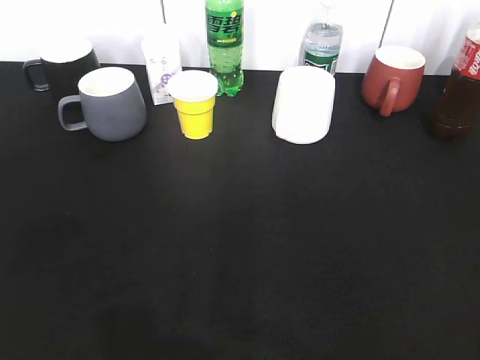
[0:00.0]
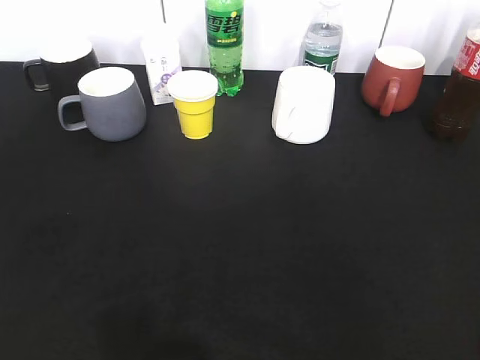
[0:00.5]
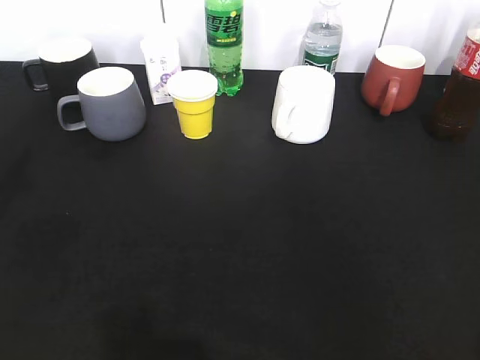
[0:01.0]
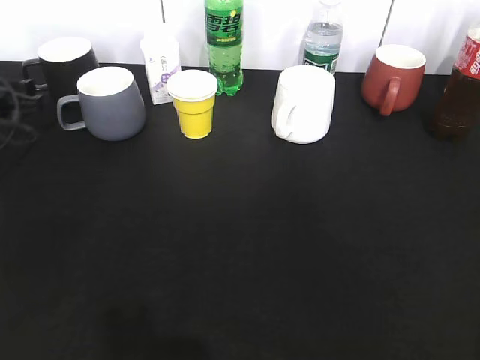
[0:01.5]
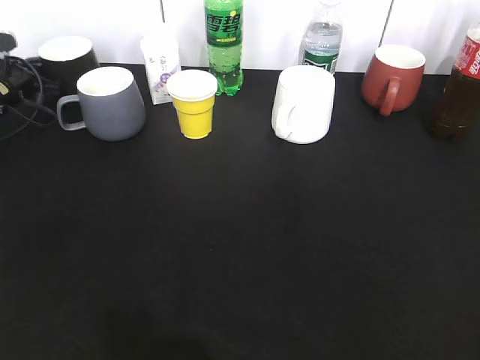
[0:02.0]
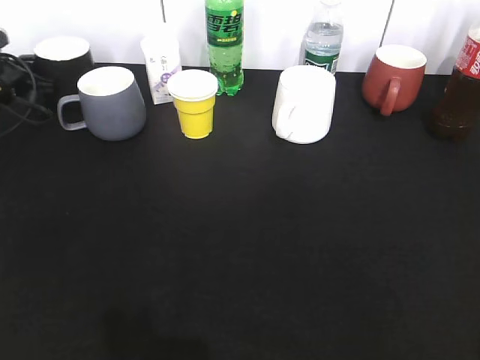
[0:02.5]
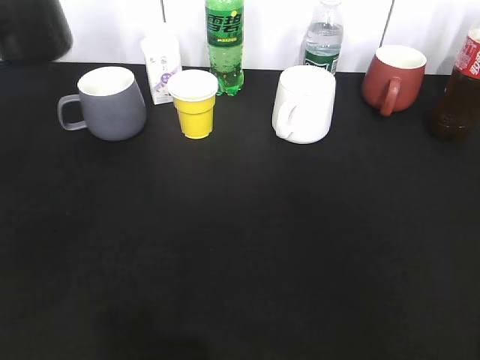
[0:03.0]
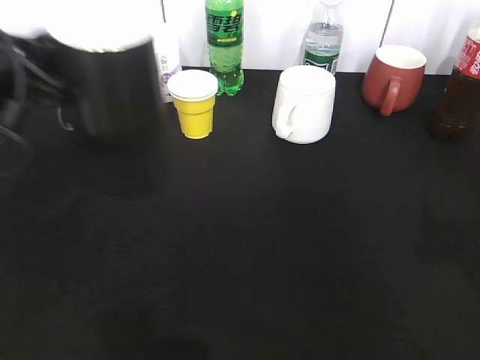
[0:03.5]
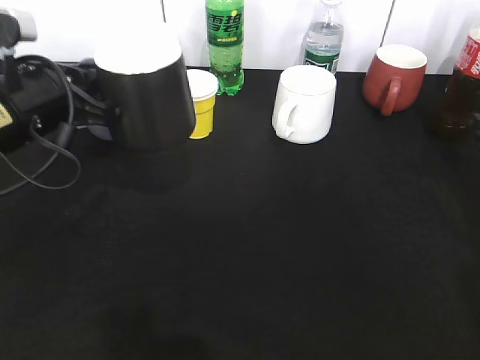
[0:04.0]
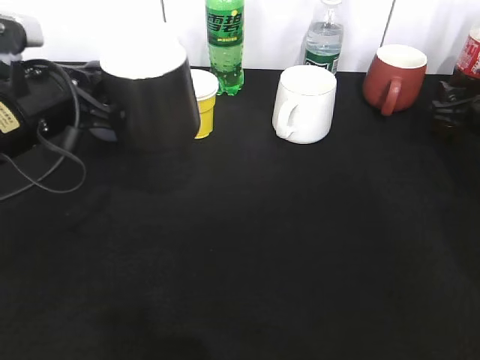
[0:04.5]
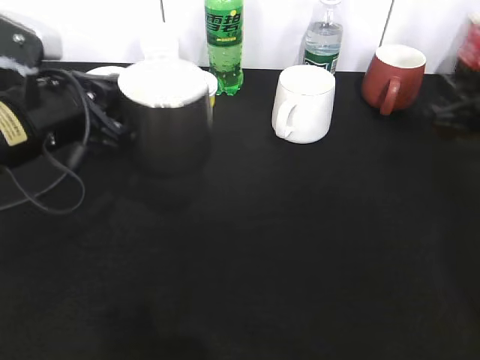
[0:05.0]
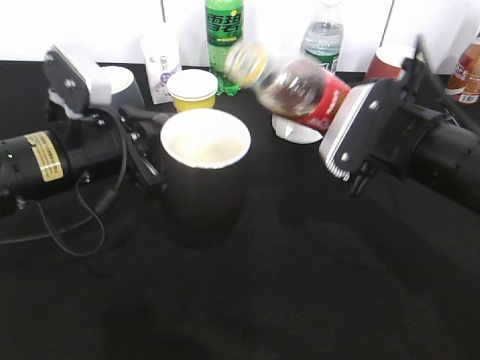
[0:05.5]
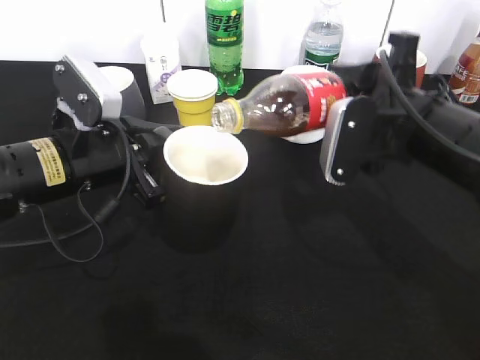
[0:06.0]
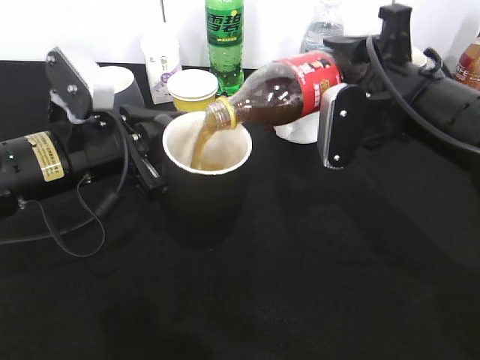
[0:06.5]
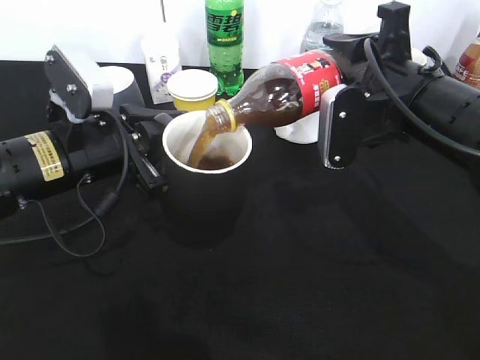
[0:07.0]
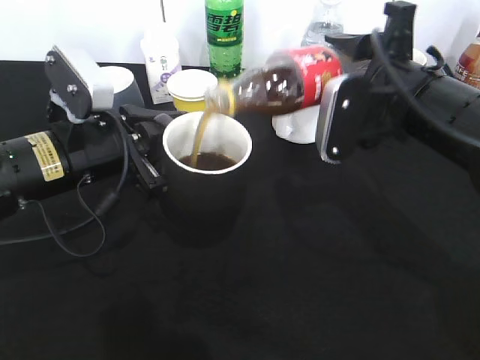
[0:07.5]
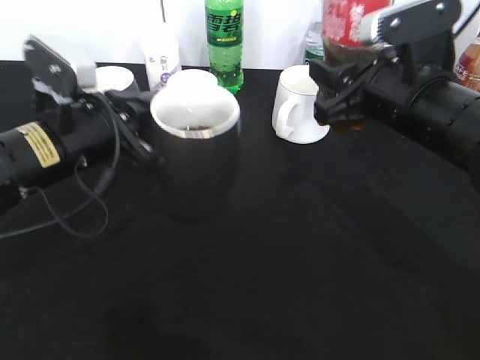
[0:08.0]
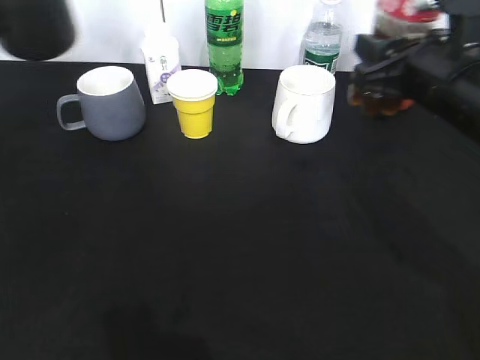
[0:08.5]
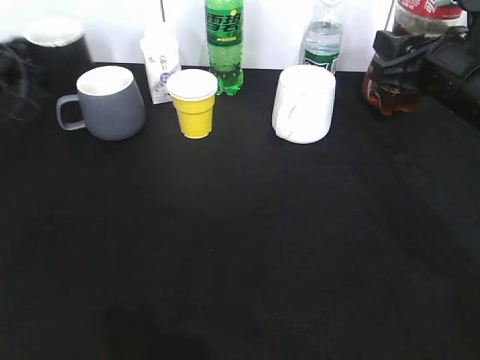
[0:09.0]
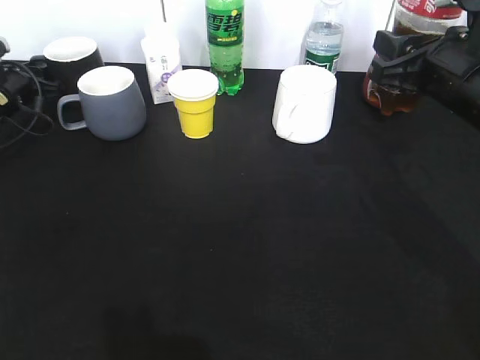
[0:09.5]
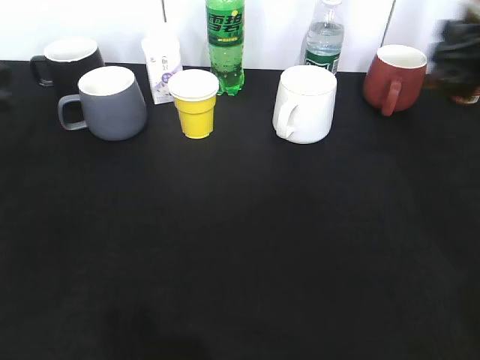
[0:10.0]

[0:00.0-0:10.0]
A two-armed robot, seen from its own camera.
Step, 0:02.5 to 0:03.5: Lift the black cup with left gripper.
Step, 0:04.0 to 0:04.5: Grasp the bottle with cola with right gripper.
Step, 0:05.0 to 0:07.5: Pour the cola from bottle to cup with right gripper.
Step, 0:08.0 to 0:09.5: Place the black cup on the table with left gripper.
0:00.0 to 0:02.0: The left gripper goes about 50 cm forward, and closes its fingers.
0:02.0 to 0:04.0: The left gripper goes about 25 cm backward, to the right and upward. The right gripper is displaced forward by some 30 cm, and opens its fingers.
0:04.0 to 0:06.0: The left gripper shifts by some 5 cm, while the right gripper heads to the left, covering some 15 cm, and closes.
0:08.0 to 0:10.0: The left gripper shifts approximately 15 cm to the left, travels forward and back again, approximately 20 cm each way, and opens up. Meanwhile the right gripper shifts roughly 10 cm to the right.

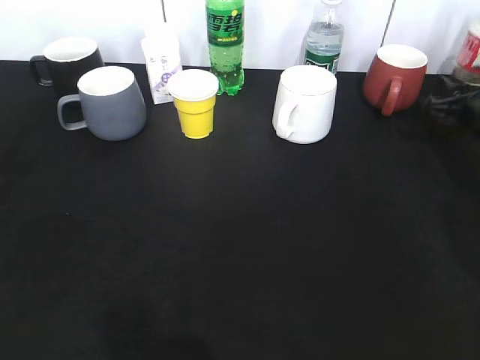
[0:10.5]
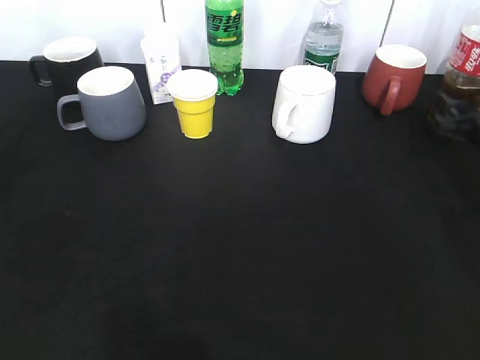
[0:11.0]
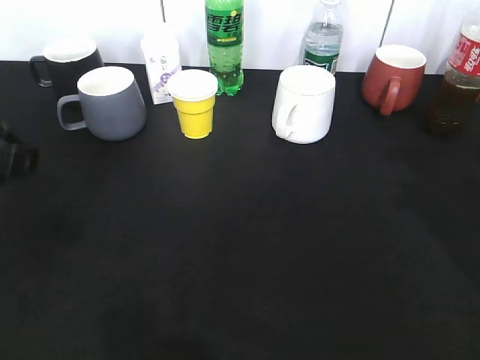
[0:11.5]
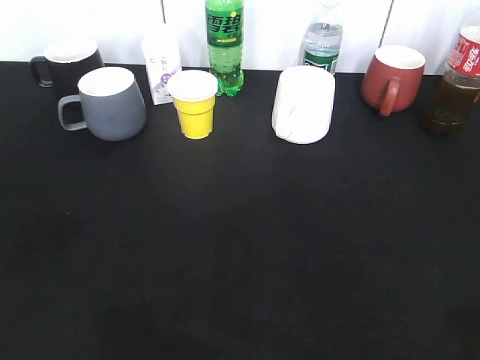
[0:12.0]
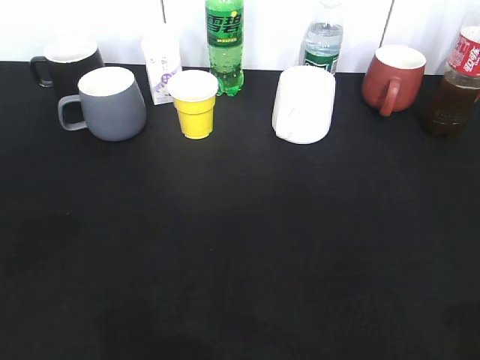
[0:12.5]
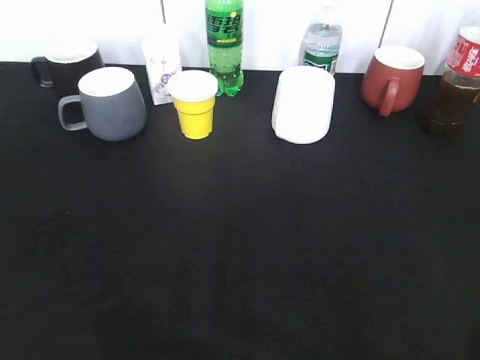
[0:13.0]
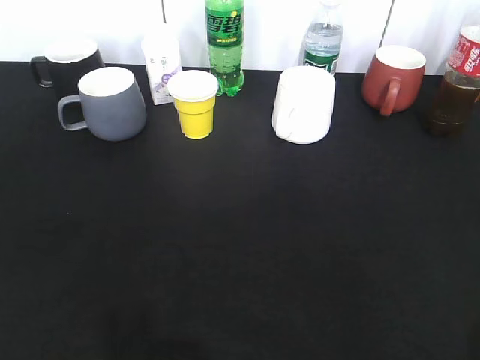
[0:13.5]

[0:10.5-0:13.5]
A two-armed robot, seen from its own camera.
0:10.5 to 0:12.0: The right gripper goes about 40 cm backward and upward, and opens its fingers. Meanwhile the left gripper shifts about 25 cm backward, and opens its fingers.

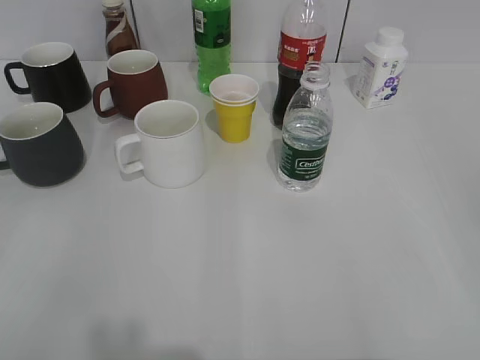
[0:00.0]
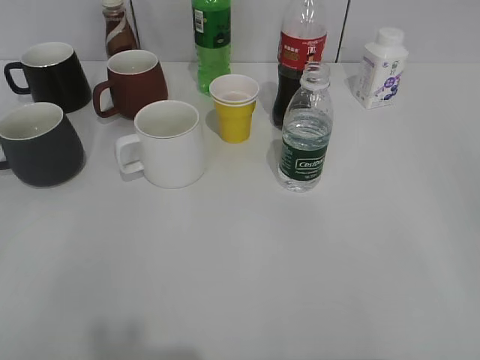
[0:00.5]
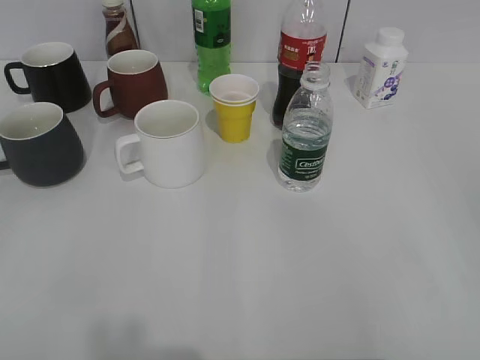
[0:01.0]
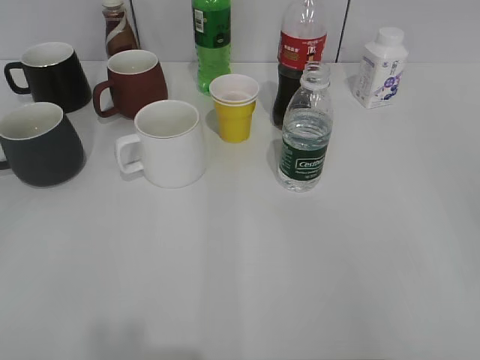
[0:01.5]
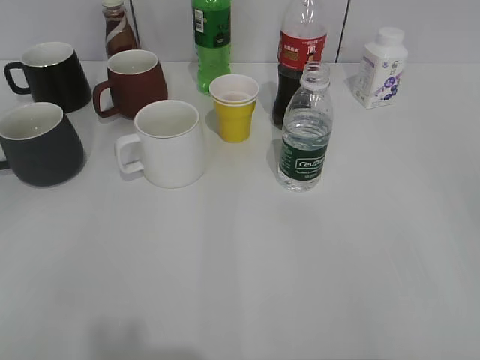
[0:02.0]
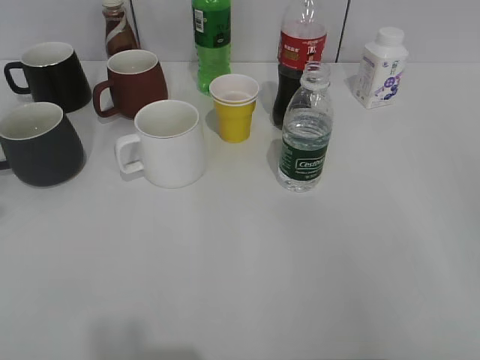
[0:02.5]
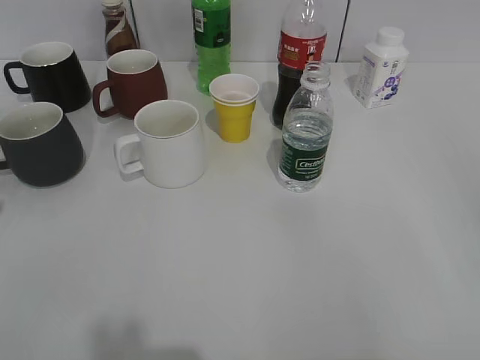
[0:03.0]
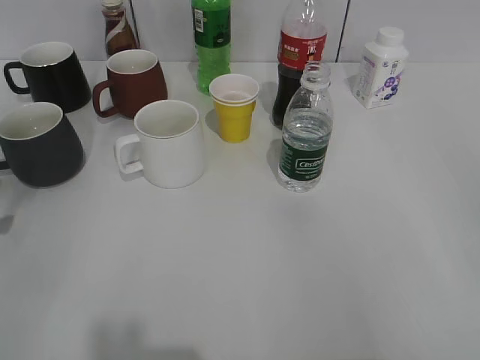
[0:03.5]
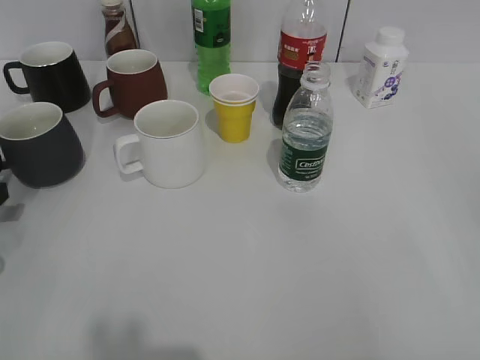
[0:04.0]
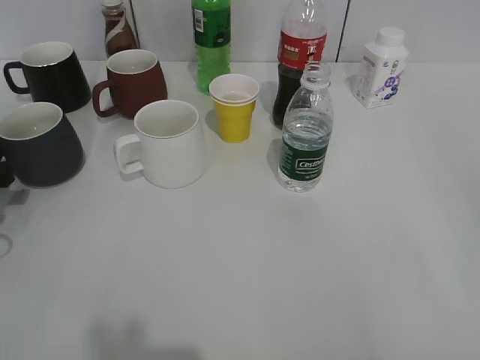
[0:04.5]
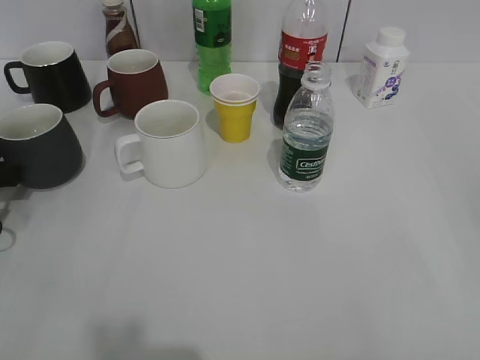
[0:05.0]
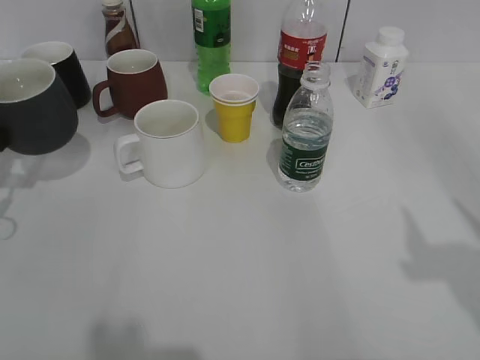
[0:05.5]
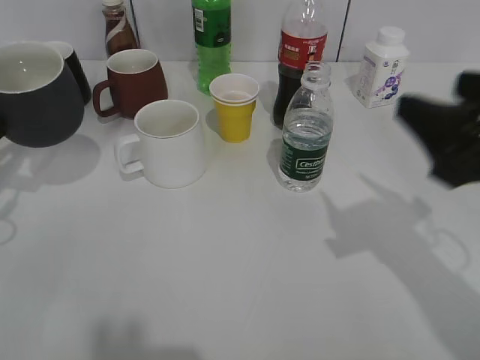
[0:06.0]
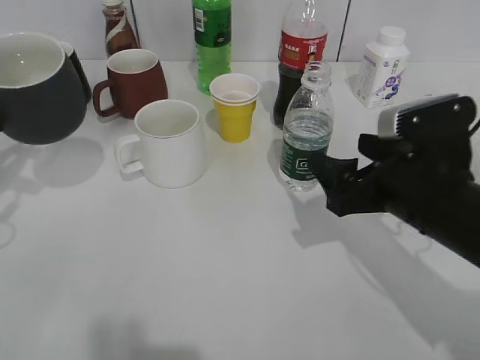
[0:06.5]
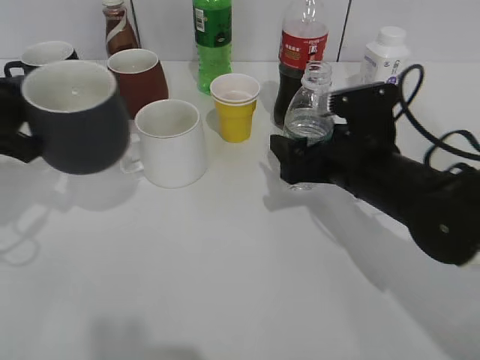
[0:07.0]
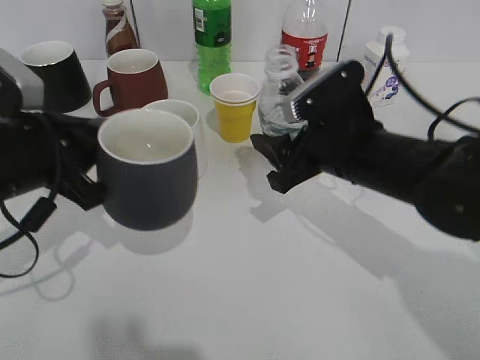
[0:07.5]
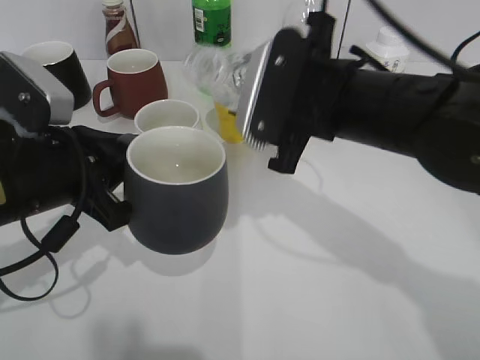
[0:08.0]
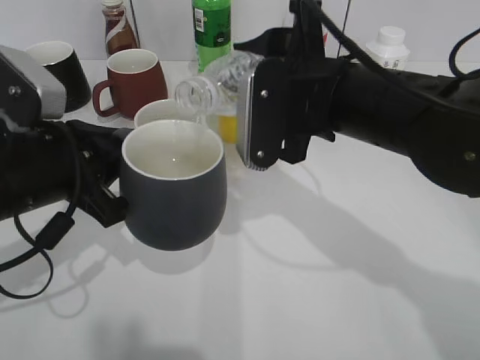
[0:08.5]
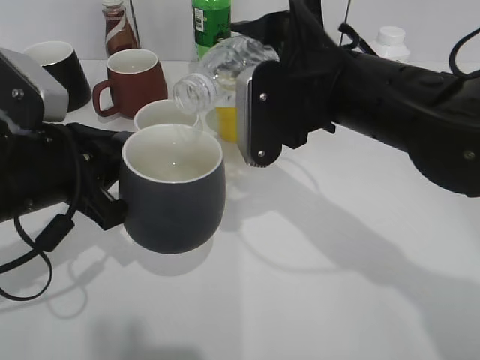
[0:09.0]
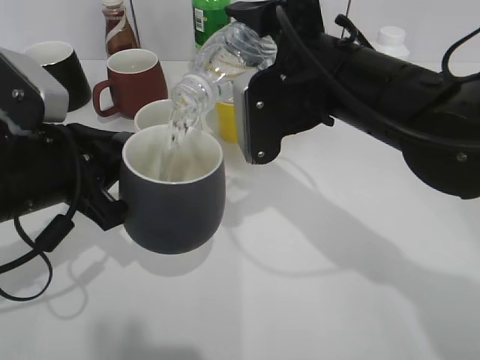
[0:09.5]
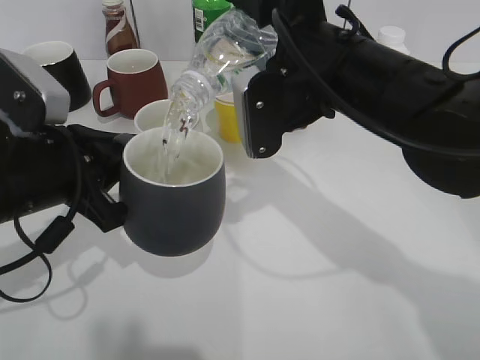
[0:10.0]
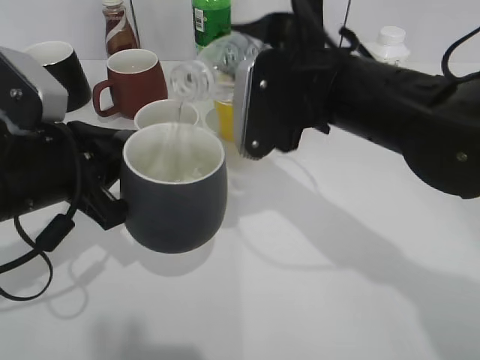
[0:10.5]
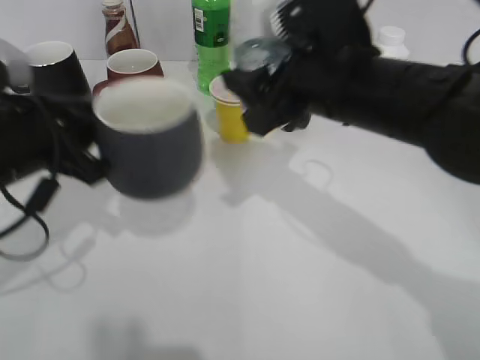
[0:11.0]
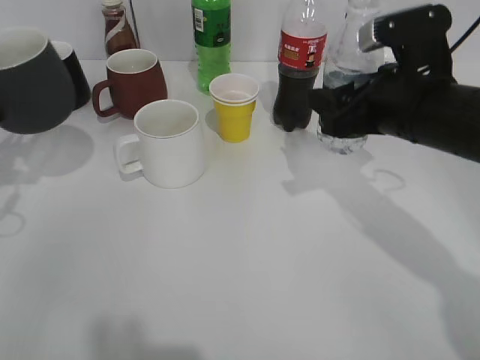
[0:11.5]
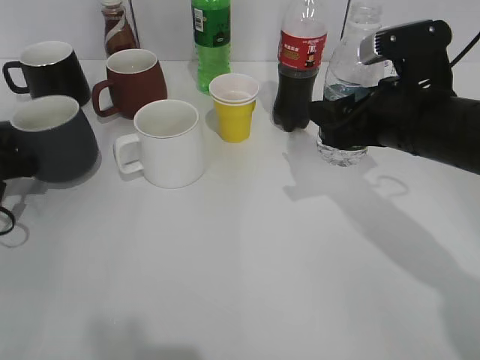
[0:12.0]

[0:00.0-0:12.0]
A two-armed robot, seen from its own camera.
Step, 0:05.0 to 0:07.0: Grasp the bottle with water with right gripper.
Step, 0:07.5 to 0:10.5: Pour the water from bottle to cup with right gripper.
0:02.0 to 0:04.0: The left gripper goes approximately 30 cm forward and downward.
0:04.0 to 0:06.0: The right gripper moves forward and to the left, about 20 cm. The left gripper travels upward by approximately 10 cm, and closes.
0:06.0 to 0:08.0: The right gripper travels to the left and forward by some 15 cm, and closes its fingers. The left gripper is displaced to the right and backward by about 15 cm.
0:10.0 to 0:12.0: The left gripper heads to the left, forward and downward, covering some 20 cm; the right gripper heads to the right and downward, covering about 10 cm.
